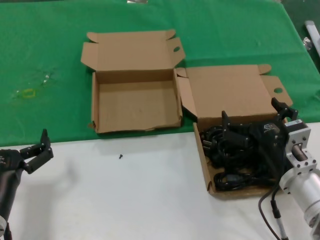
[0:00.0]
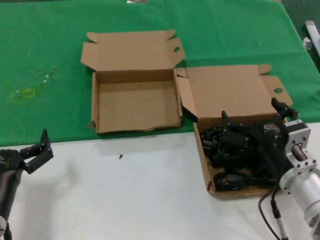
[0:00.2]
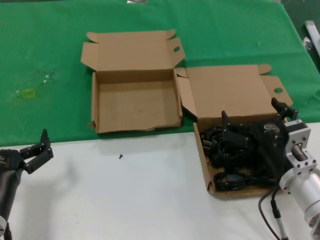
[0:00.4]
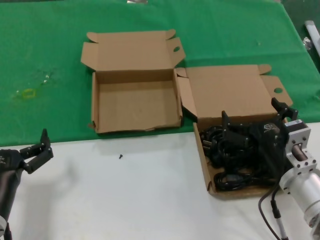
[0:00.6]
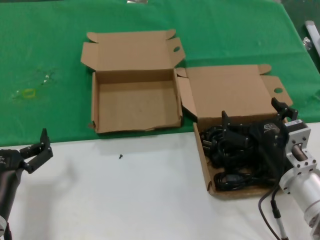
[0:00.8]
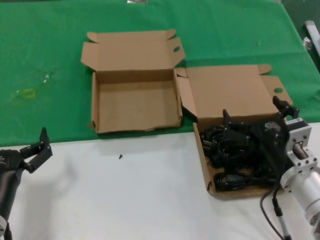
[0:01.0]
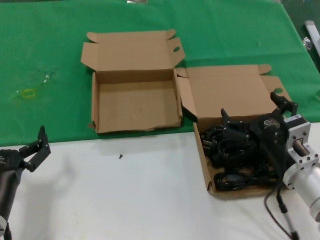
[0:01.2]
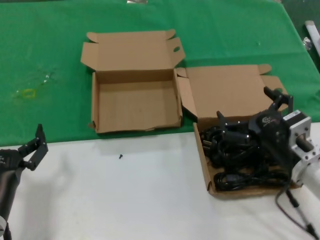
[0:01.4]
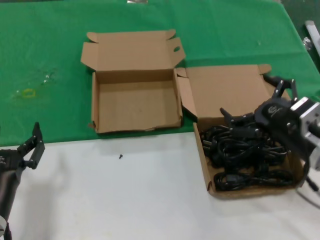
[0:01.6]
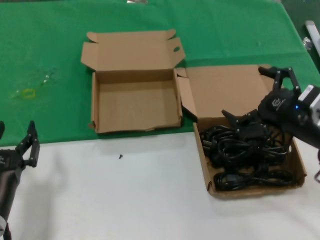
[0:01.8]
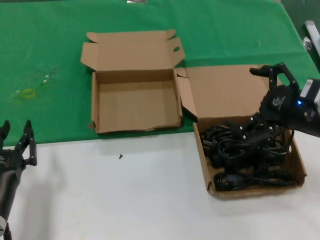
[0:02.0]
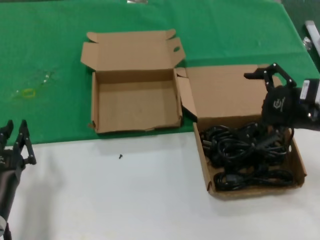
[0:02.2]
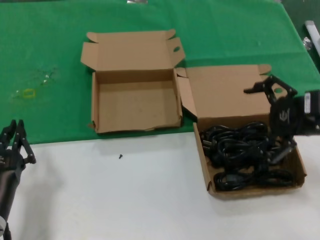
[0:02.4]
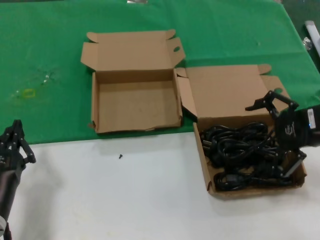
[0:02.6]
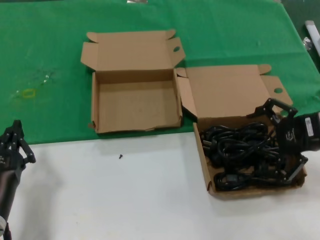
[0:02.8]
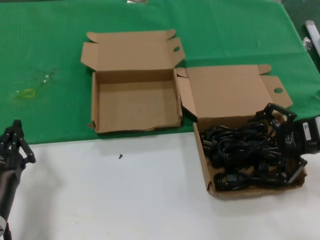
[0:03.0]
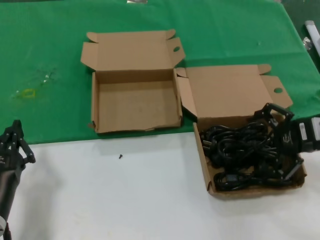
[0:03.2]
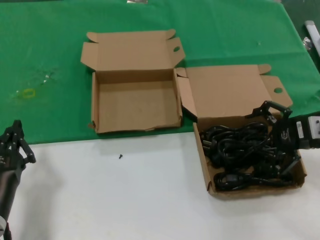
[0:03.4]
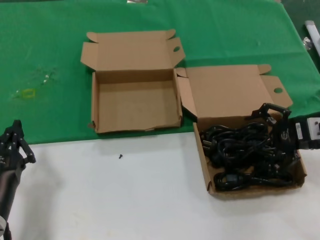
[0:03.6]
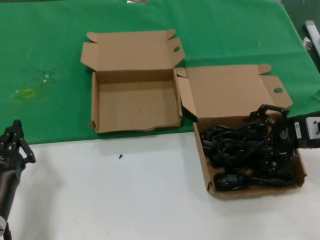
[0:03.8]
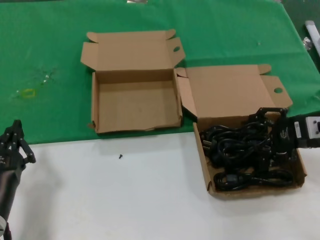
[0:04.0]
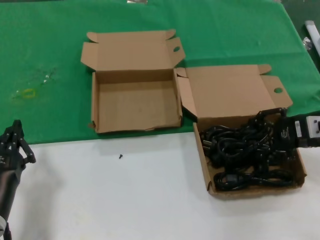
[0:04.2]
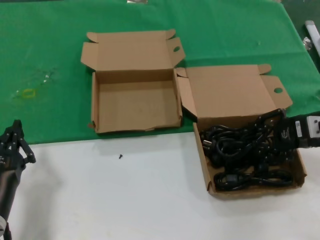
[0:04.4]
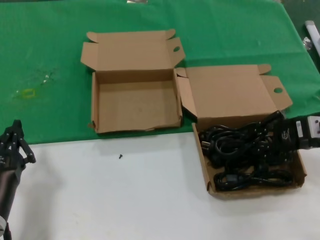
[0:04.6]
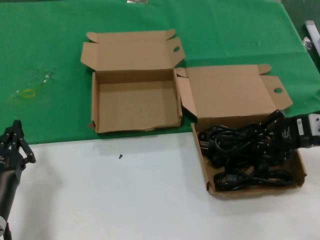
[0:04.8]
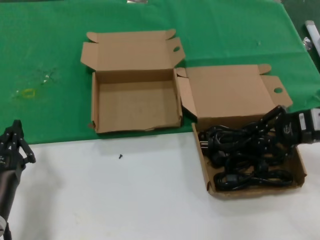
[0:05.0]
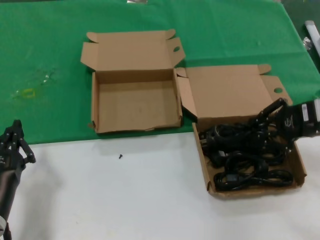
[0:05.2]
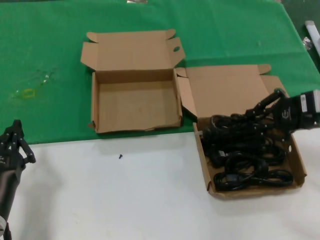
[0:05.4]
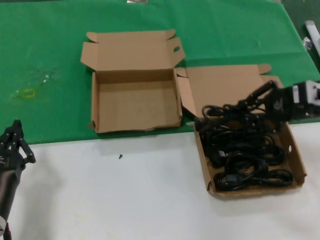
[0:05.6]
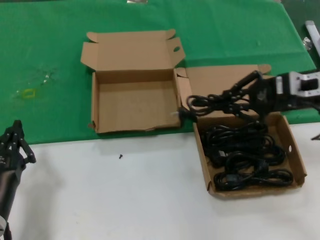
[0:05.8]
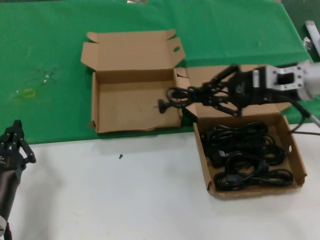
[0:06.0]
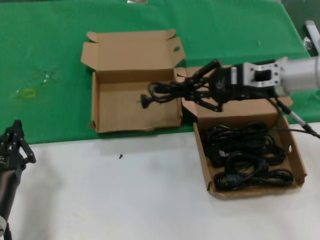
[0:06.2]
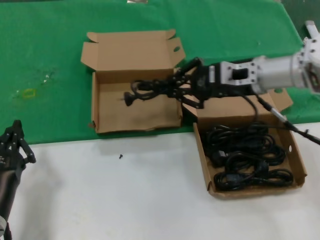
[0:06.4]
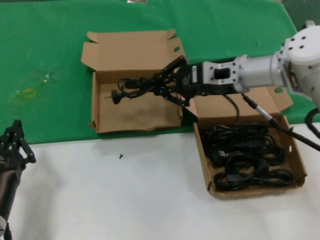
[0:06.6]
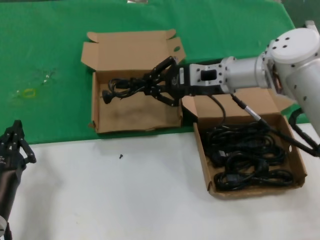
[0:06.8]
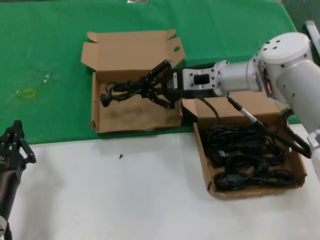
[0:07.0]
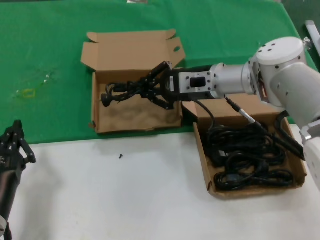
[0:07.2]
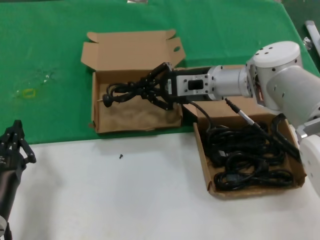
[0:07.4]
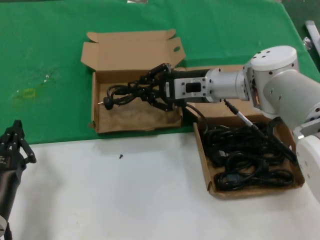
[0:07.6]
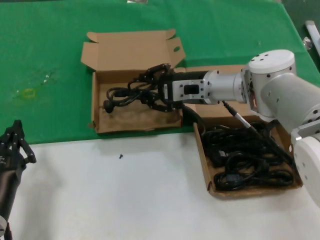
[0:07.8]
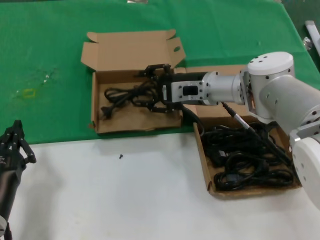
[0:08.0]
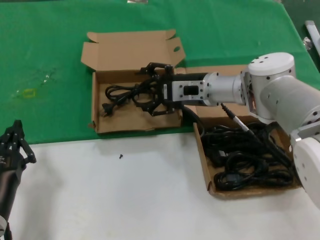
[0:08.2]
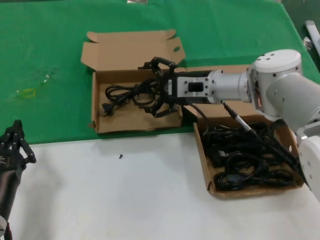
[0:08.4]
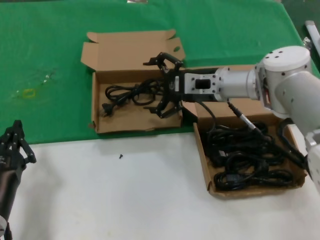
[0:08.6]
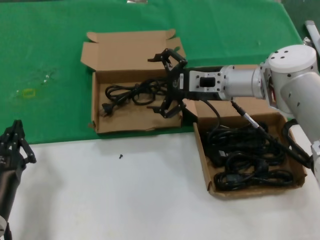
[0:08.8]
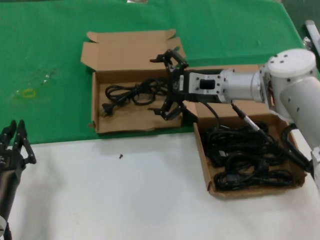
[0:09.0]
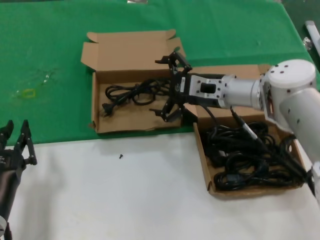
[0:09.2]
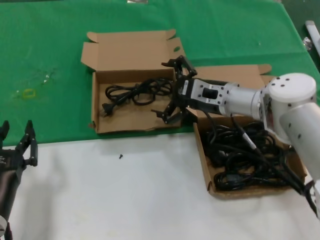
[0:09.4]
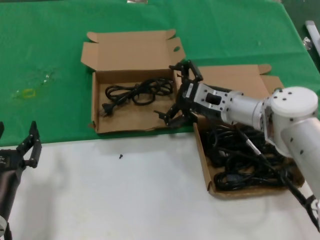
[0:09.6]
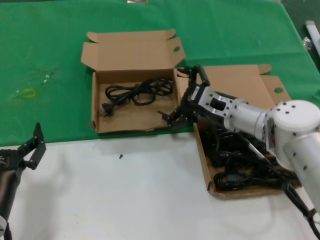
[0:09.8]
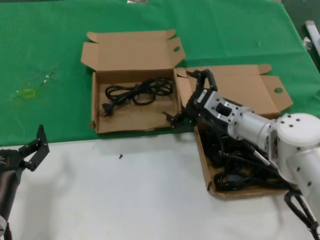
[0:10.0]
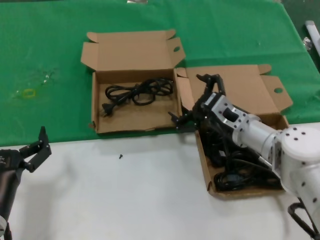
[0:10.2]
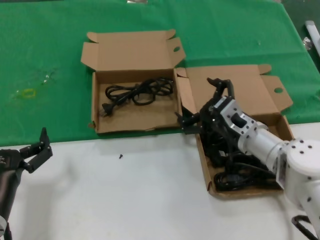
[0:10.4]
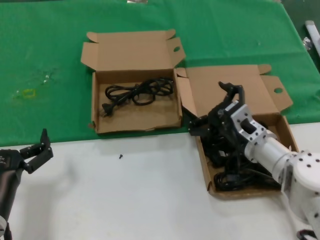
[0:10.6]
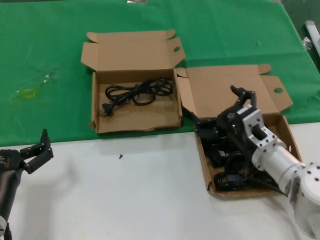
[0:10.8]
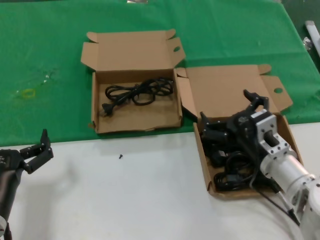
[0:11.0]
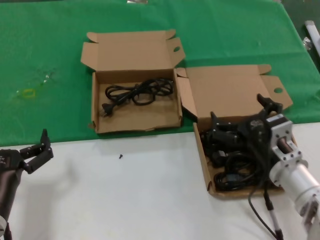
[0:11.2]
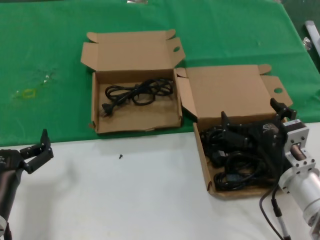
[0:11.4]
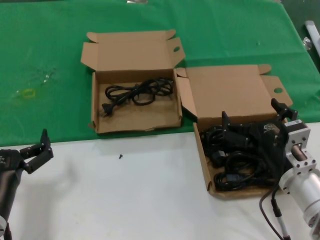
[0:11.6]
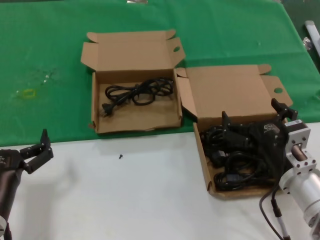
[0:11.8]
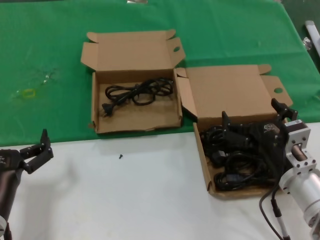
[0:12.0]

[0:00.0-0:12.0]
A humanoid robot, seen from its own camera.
Task of the whole recording: take the parts from the box containing them and put them into an empty box.
Step, 0:00.0 to 0:04.6: Grasp the data cable.
Step, 0:04.8 to 0:08.2: Place the data cable in the another box.
0:00.0 to 0:01.6: The right hand heads upward, covering about 5 cm.
0:01.6 to 0:03.0: The right hand is displaced to the right, upward and forward by approximately 15 cm.
0:03.0 to 0:04.4: The hands move only a little.
0:04.4 to 0:06.0: The right hand travels to the left and upward by approximately 10 cm.
0:06.0 to 0:07.6: The right hand moves to the left and forward, approximately 15 cm.
0:07.6 to 0:09.0: The hands make only small movements.
0:09.0 to 0:10.4: The right hand is displaced backward and downward by approximately 15 cm.
0:10.4 to 0:12.0: The right hand travels backward by some 15 cm.

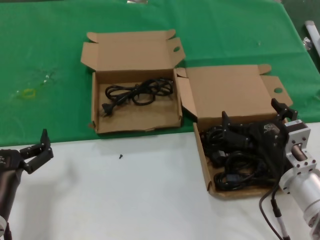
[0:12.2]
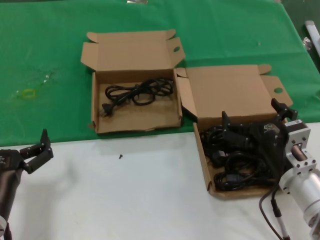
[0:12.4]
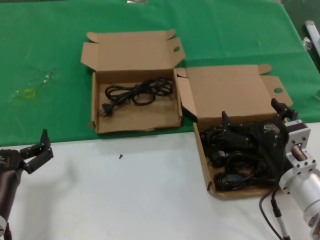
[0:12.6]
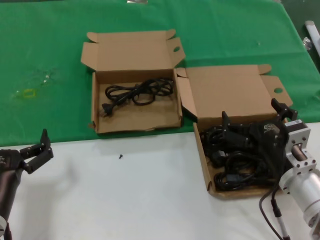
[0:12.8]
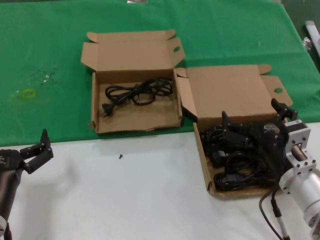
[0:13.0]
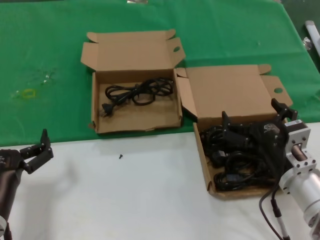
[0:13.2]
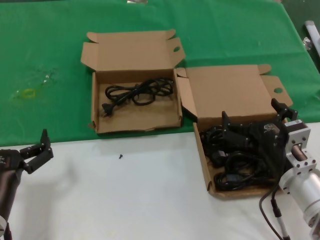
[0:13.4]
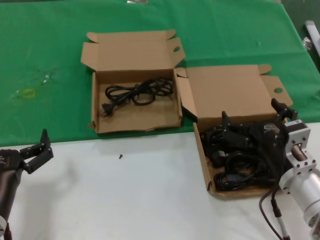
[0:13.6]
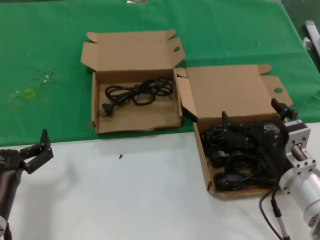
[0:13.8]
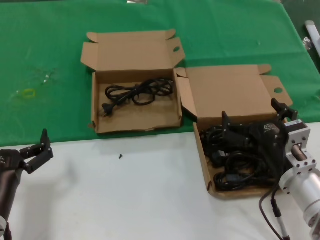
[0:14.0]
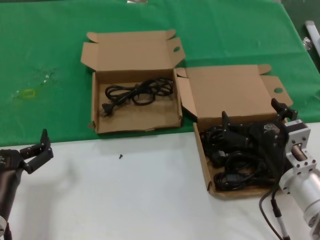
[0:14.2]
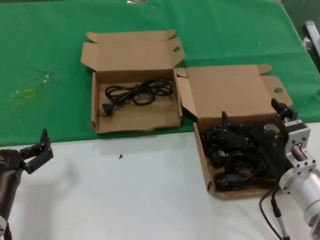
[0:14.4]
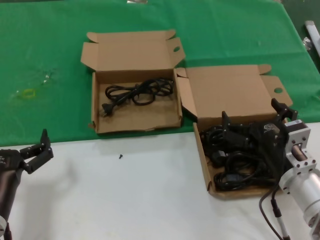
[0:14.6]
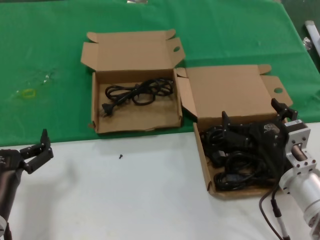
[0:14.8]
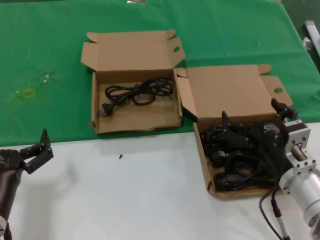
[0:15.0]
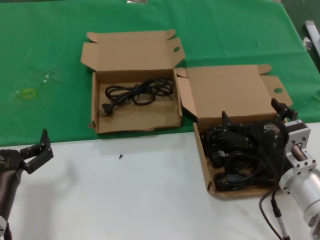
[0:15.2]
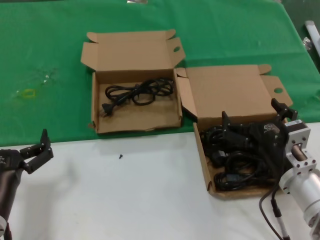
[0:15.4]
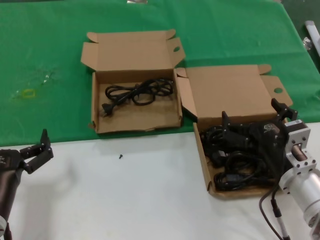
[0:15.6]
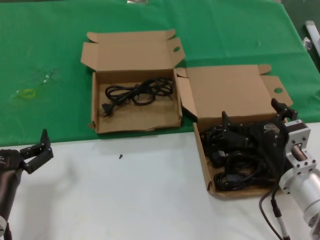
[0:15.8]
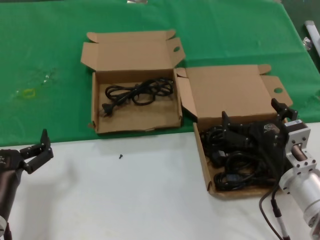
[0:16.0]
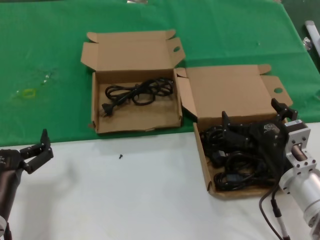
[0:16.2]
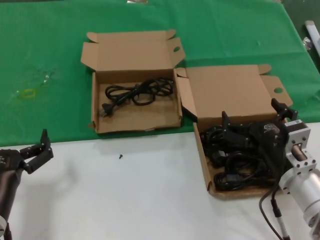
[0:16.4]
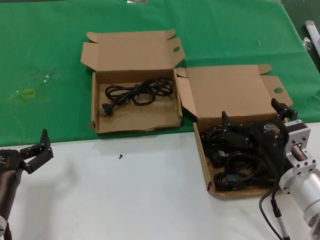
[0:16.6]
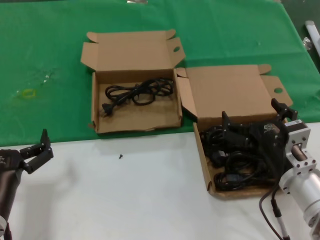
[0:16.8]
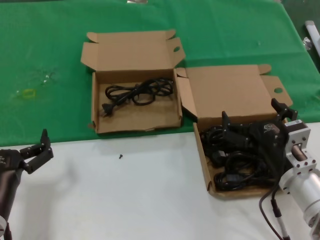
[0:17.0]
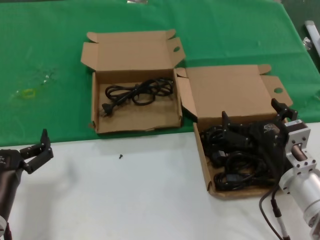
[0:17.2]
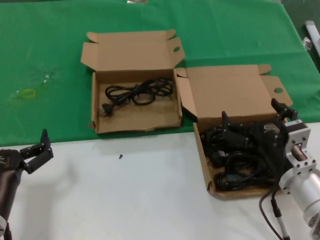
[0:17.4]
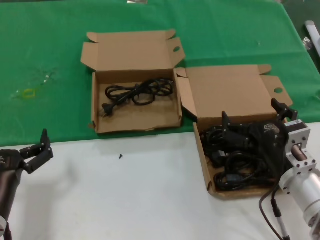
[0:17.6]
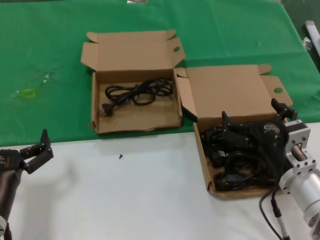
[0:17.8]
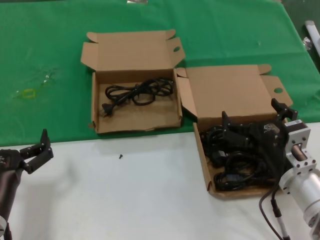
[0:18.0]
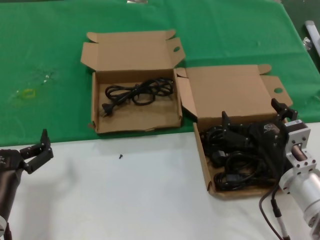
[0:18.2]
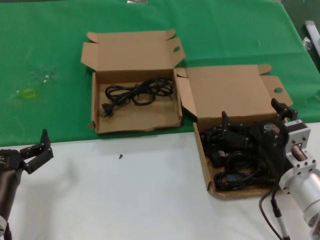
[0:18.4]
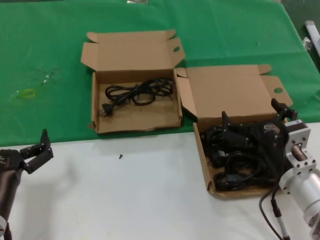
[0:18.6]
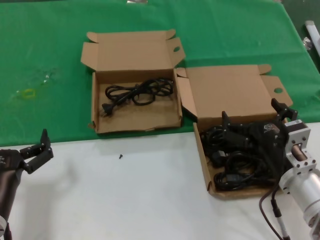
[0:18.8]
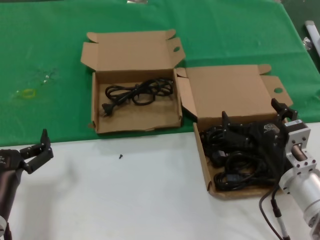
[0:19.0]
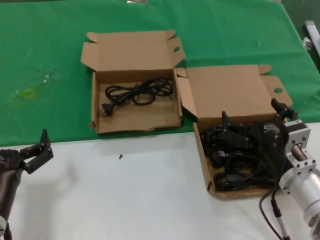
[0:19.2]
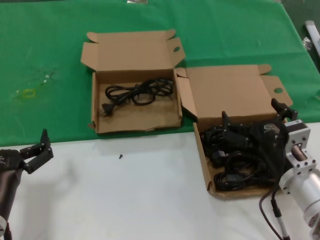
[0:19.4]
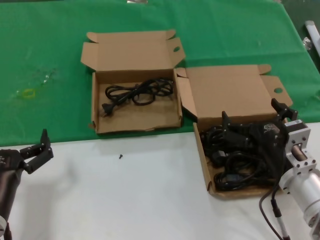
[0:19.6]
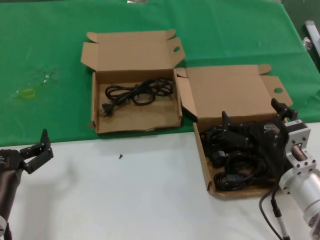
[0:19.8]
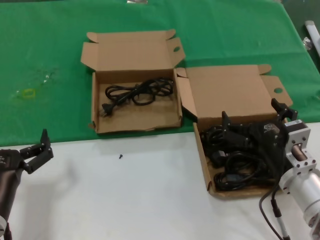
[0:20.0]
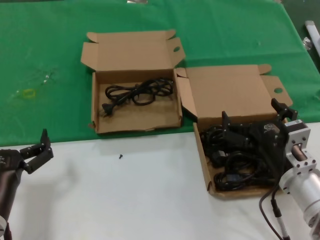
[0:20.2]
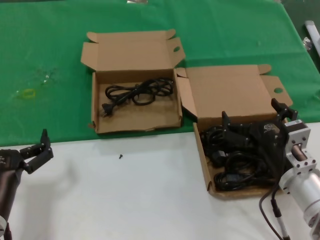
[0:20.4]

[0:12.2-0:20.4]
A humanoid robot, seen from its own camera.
Task of the whole recording: take the parts from the box containing them and put them into an empty box.
0:12.2 to 0:20.4: Both hands stay put.

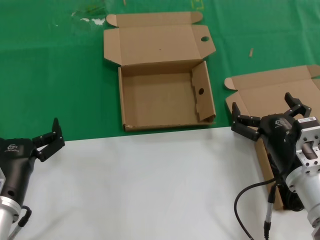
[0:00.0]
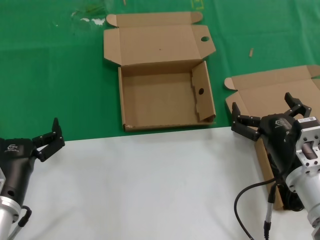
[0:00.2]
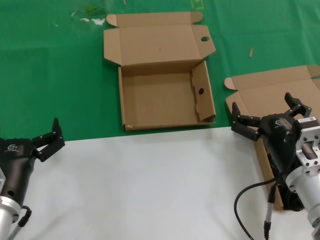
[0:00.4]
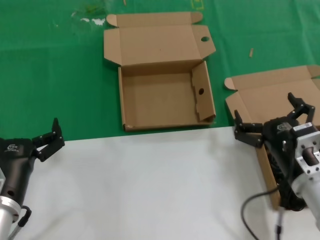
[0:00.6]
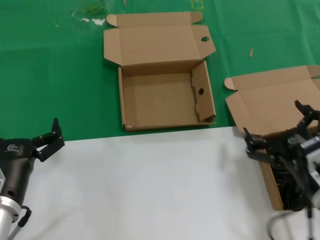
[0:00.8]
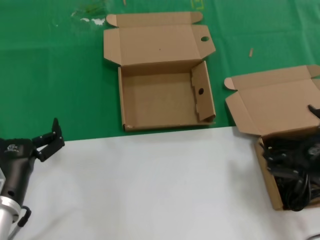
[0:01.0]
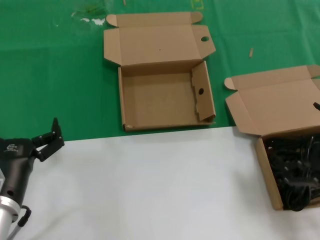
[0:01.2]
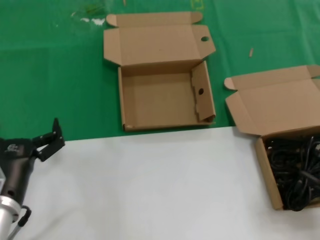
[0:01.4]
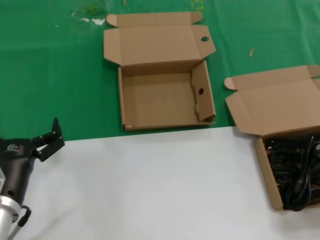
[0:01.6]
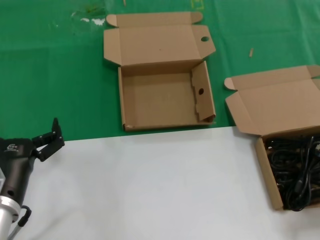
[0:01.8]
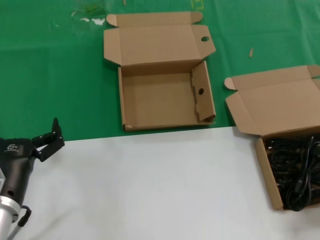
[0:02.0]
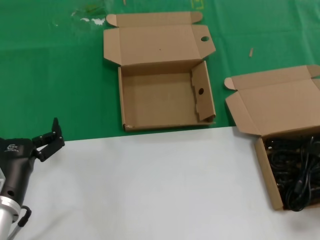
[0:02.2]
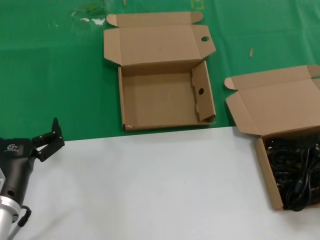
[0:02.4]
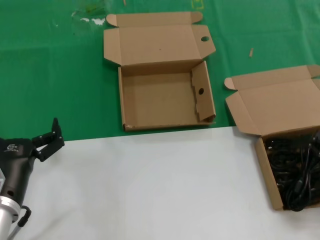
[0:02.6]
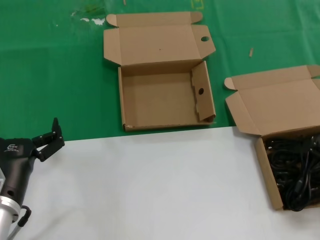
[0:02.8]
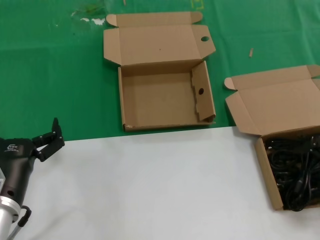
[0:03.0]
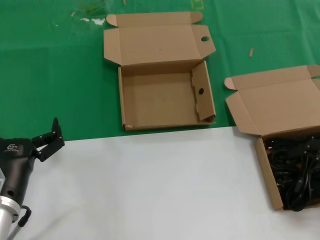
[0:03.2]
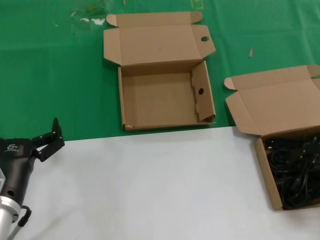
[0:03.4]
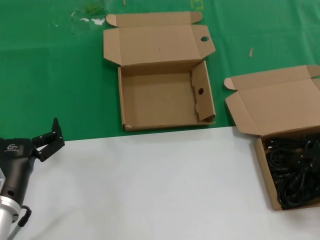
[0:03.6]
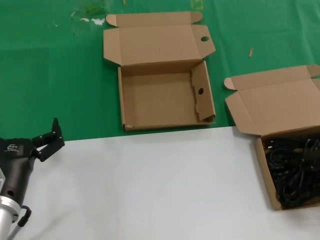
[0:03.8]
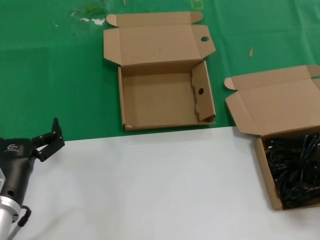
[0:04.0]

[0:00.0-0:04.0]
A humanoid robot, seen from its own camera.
Task of the whole recording: take the parts from the box containing them and put them into an empty box.
0:00.0 to 0:01.4: The right hand goes some 20 cm to the right, backward and upward.
0:01.4 to 0:02.6: The right hand is displaced forward and to the right by approximately 10 cm.
